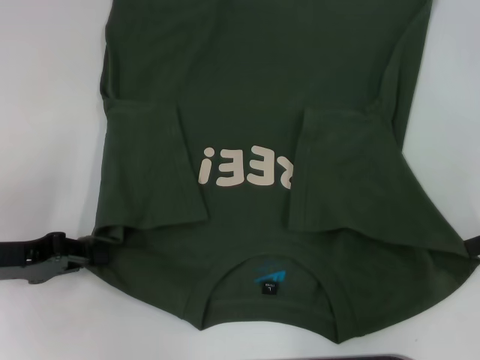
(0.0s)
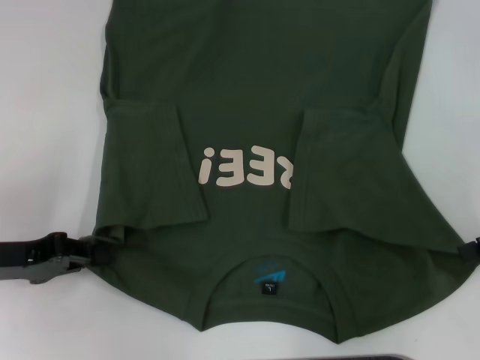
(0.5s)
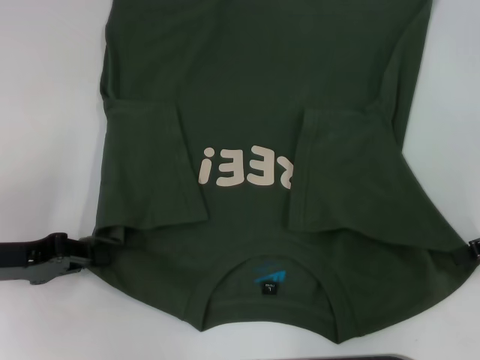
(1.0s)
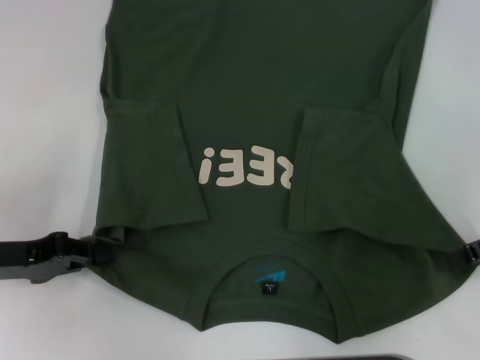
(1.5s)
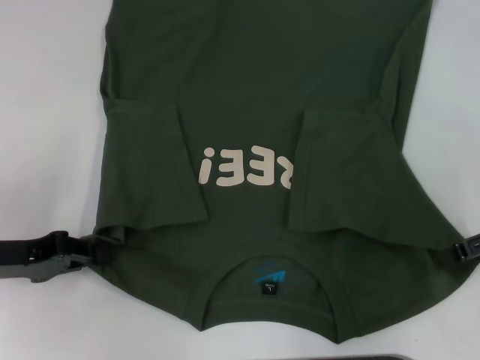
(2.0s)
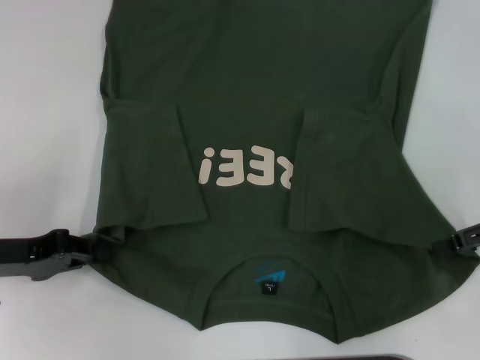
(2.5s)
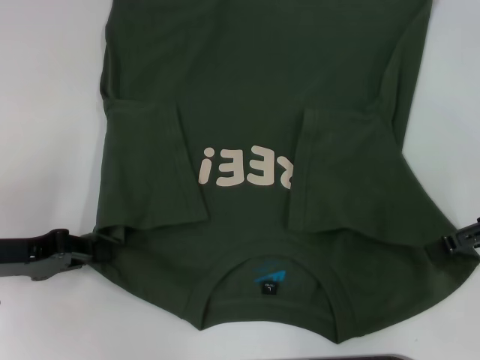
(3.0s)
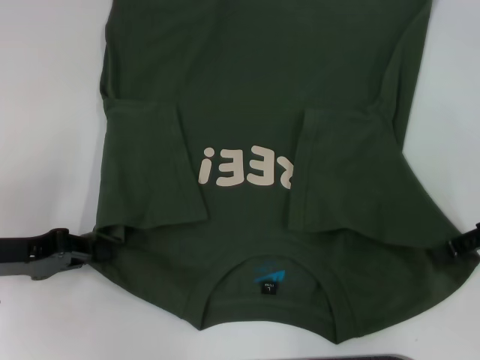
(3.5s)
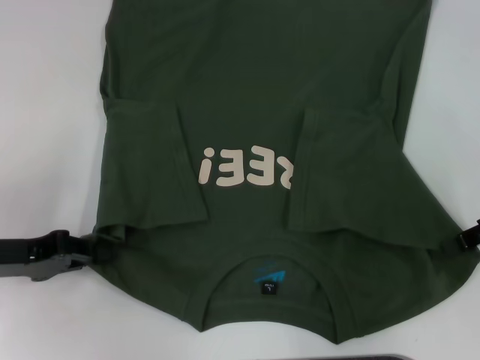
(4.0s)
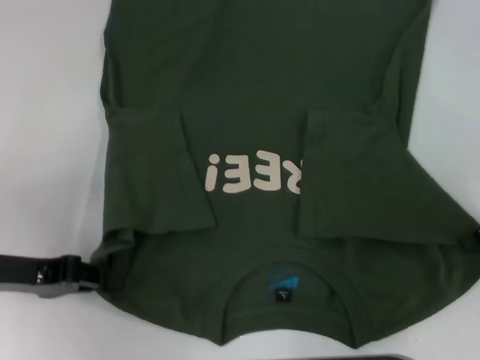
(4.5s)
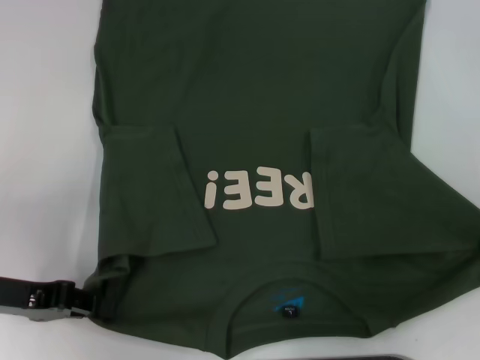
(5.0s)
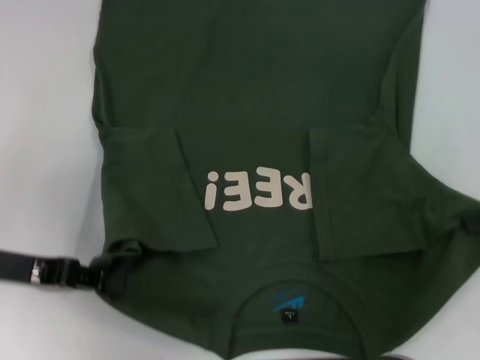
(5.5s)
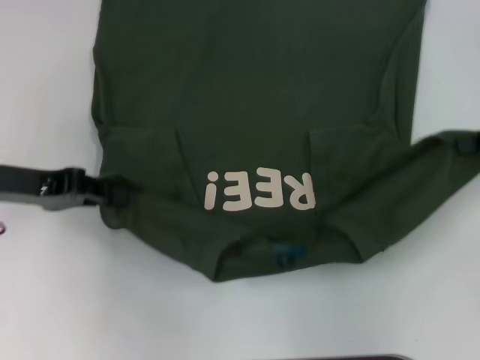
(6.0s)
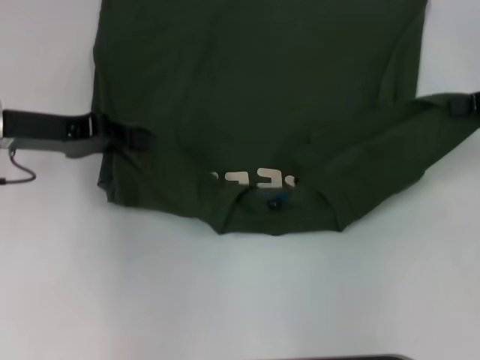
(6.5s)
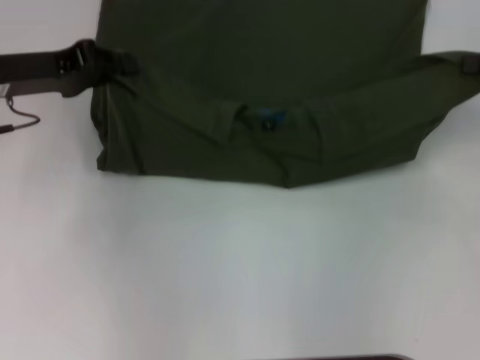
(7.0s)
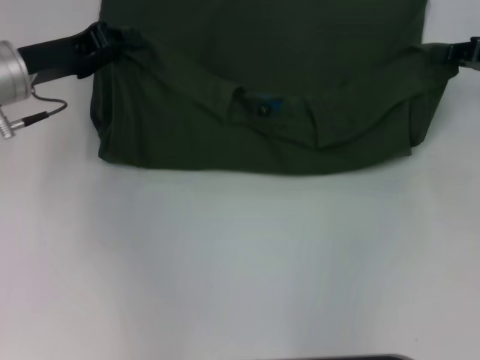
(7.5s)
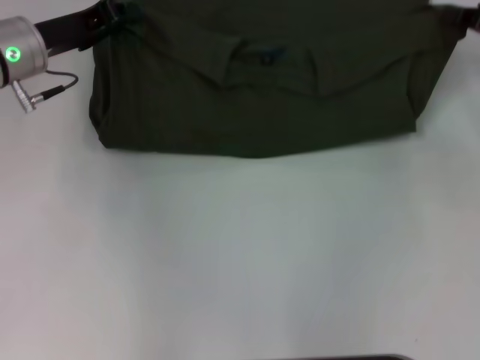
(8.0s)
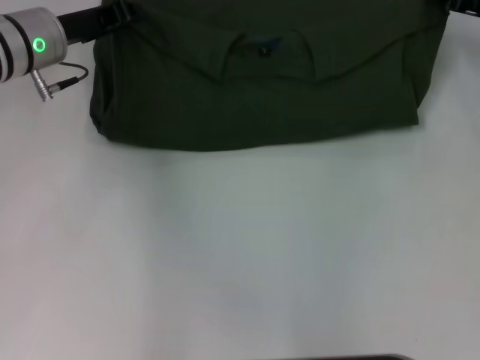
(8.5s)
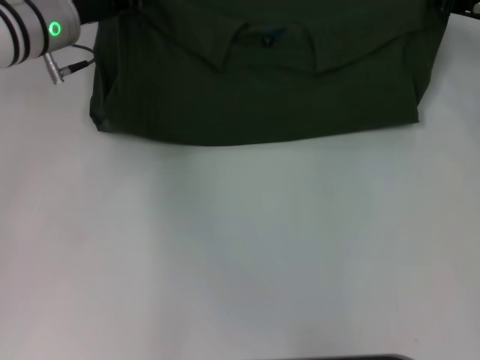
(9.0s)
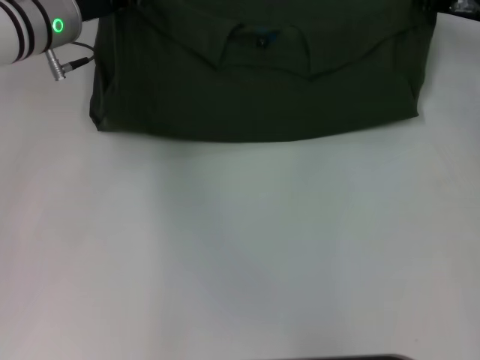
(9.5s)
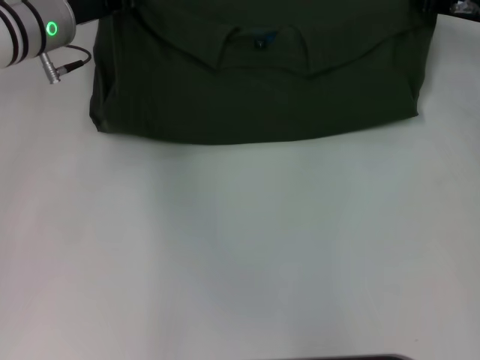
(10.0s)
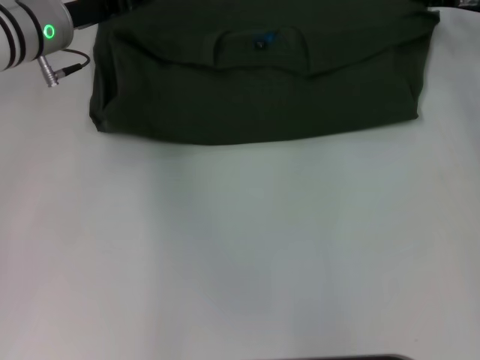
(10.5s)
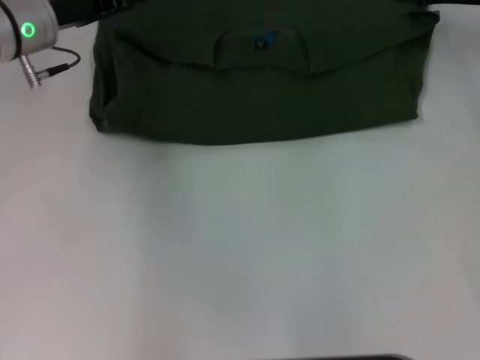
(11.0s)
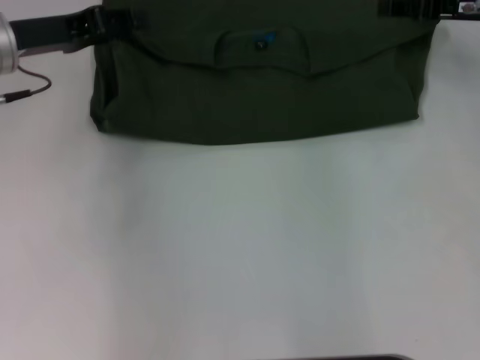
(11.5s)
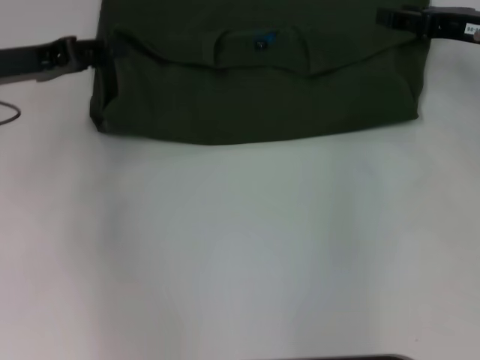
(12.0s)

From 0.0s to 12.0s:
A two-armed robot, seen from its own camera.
Step, from 0.0s to 4.5s: Grab the bottom right corner with your right hand.
Step, from 5.0s to 10.5s: Fold the clothes with your left hand.
Step, from 5.0s to 10.5s: Fold the clothes with your right hand.
From 2.0s to 4.0s: The right gripper closes.
From 4.0s to 6.0s: The left gripper heads forward and upward, covering roughly 10 cm. Meanwhile the right gripper shifts by roughly 5 cm.
From 6.0s to 8.0s: The right gripper changes place by some 5 cm; the left gripper goes approximately 10 cm forward and to the right.
From 8.0s to 10.0s: The right gripper travels forward and to the left by roughly 10 cm.
From 10.0s to 12.0s: The left gripper is displaced to the left and backward by some 10 cm, and opens its fingers. The right gripper heads backward, covering approximately 5 cm, and opens its fingers.

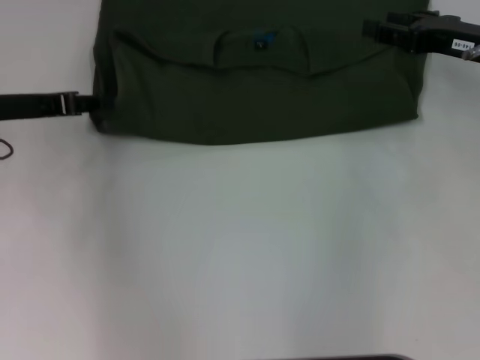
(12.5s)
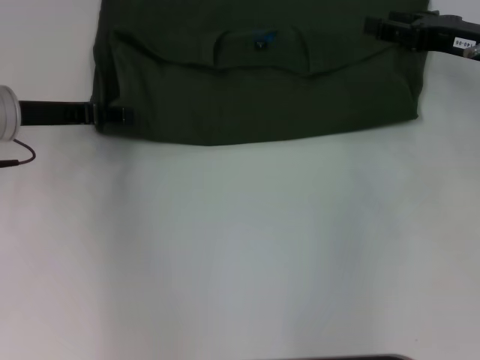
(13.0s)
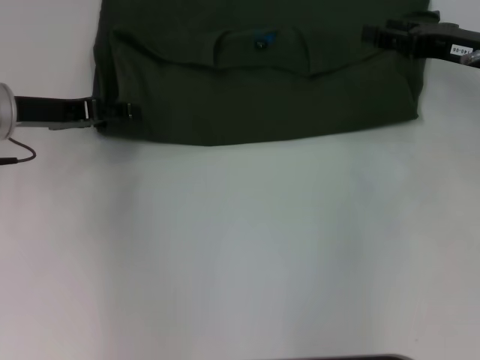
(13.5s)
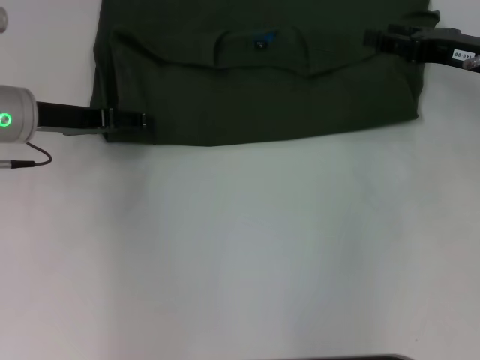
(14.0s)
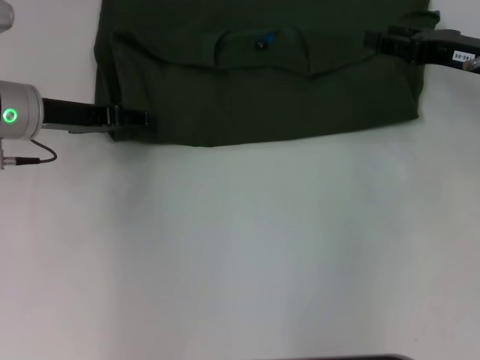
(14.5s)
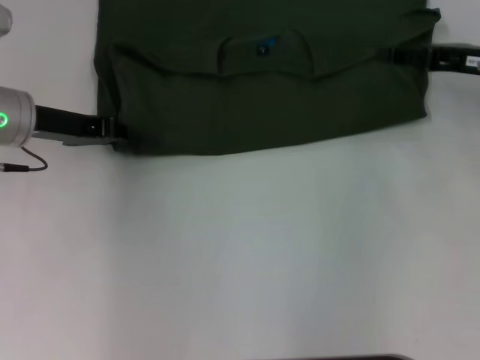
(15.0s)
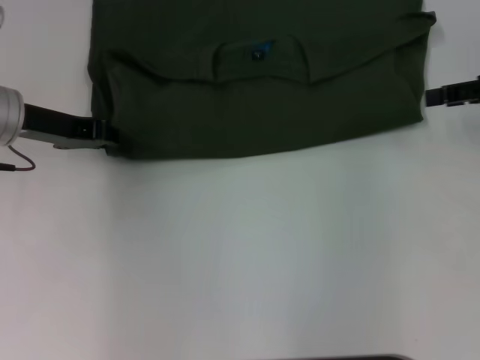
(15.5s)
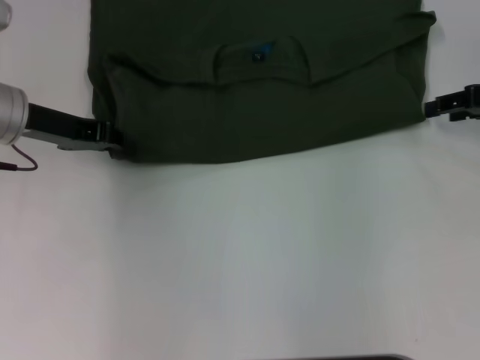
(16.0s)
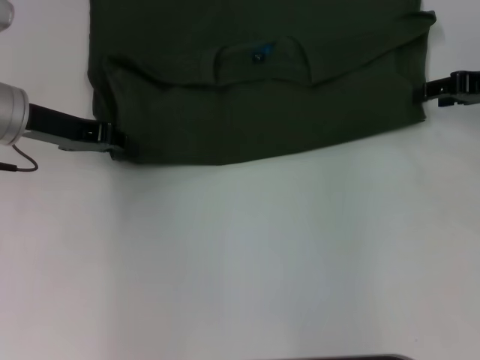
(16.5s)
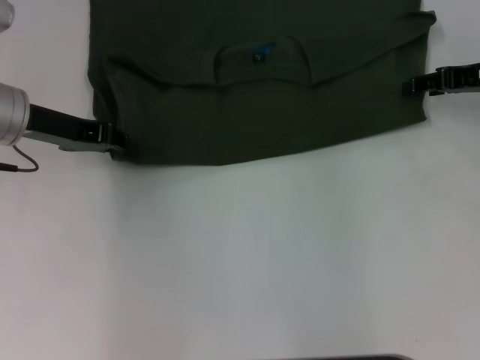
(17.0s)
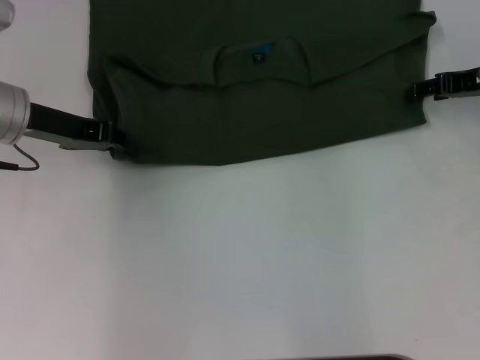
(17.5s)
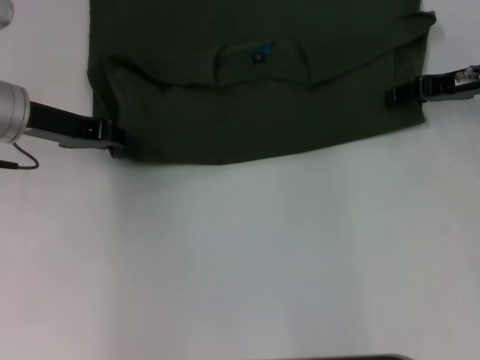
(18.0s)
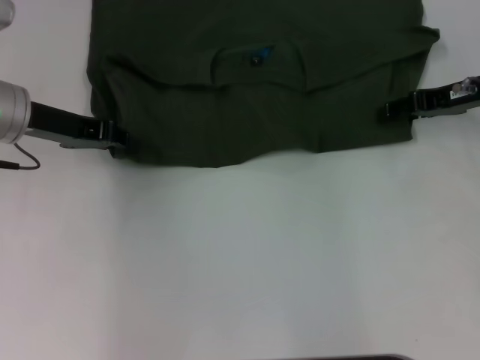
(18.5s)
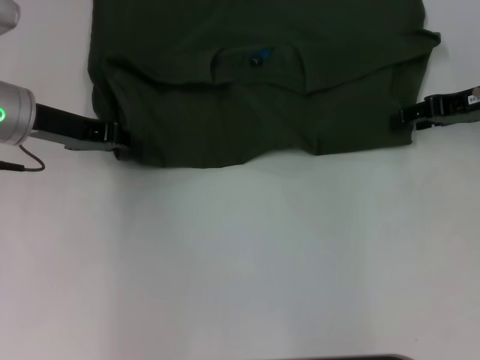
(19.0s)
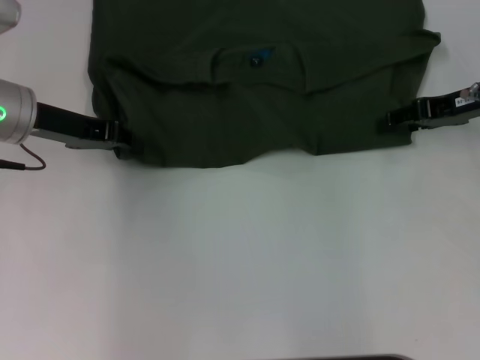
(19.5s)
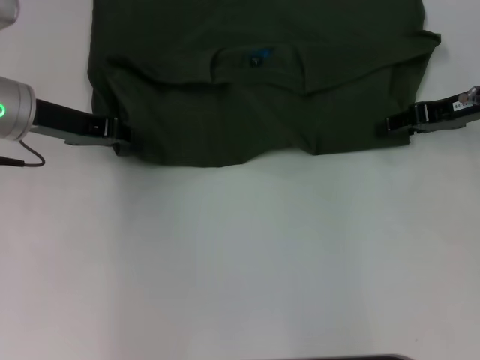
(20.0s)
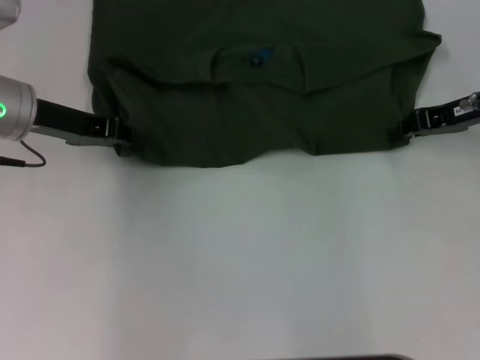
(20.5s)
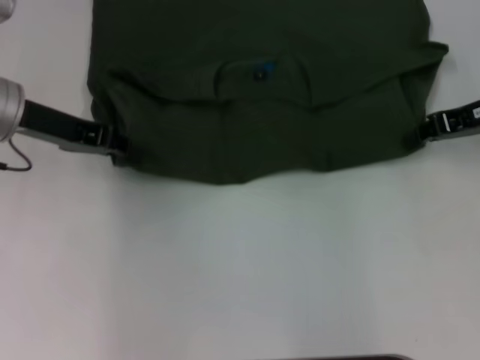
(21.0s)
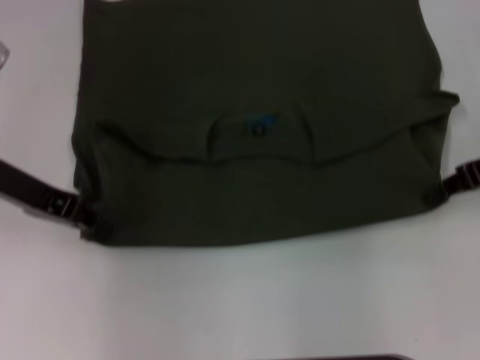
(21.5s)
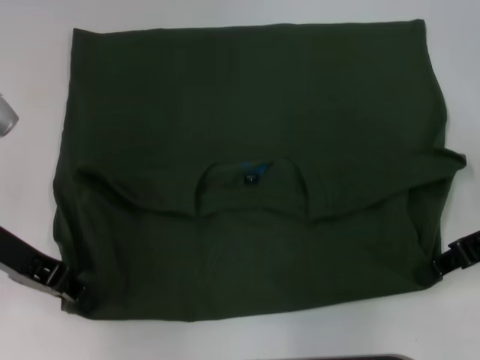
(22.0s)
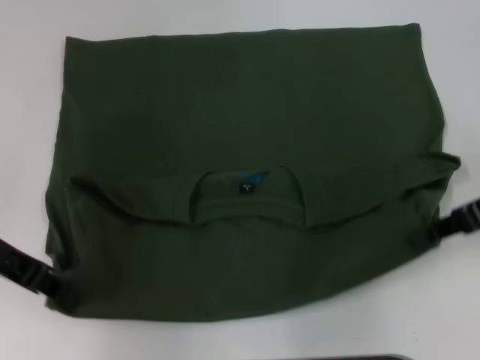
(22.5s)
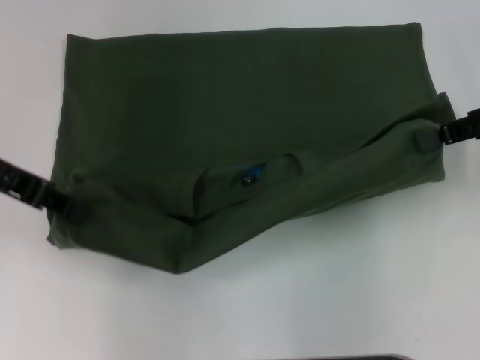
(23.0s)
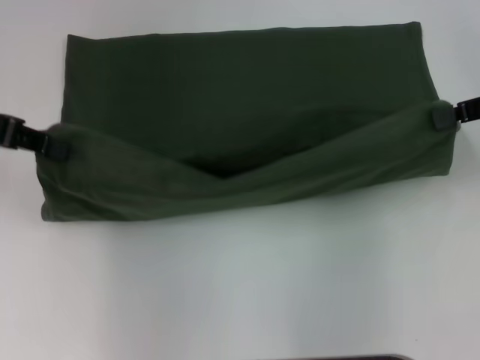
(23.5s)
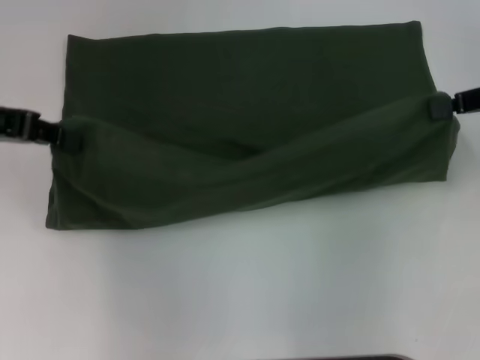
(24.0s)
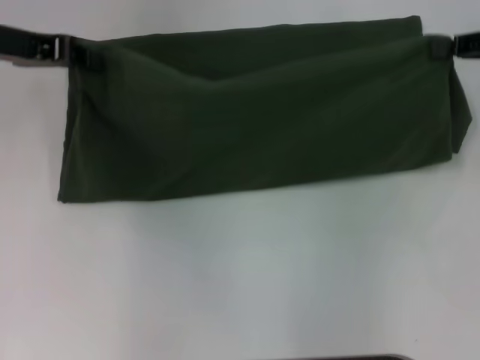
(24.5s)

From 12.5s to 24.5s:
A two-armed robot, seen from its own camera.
Step, from 12.5s to 22.0s: Pull the clothes with your left hand.
Step, from 12.5s to 22.0s: Pull the clothes with your right hand.
From 12.5s to 14.5s: The grippers stay close to where they were, moving slightly.
From 14.5s to 16.5s: The left gripper closes its fingers.
From 16.5s to 20.5s: There are only small adjustments of the grippers.
From 20.5s to 22.5s: Both grippers travel together backward, approximately 10 cm.
From 22.5s to 24.5s: The right gripper shifts roughly 5 cm forward. The left gripper heads forward and upward, covering roughly 10 cm.

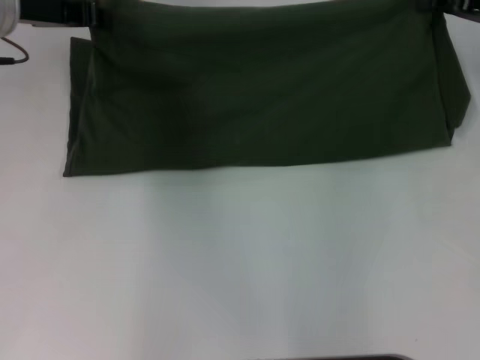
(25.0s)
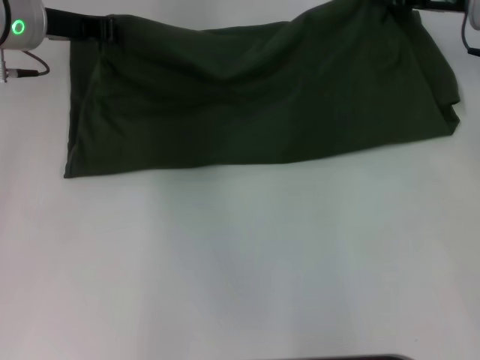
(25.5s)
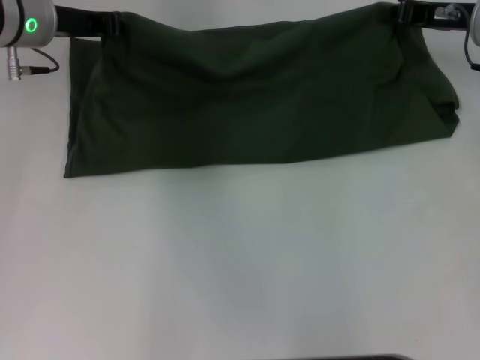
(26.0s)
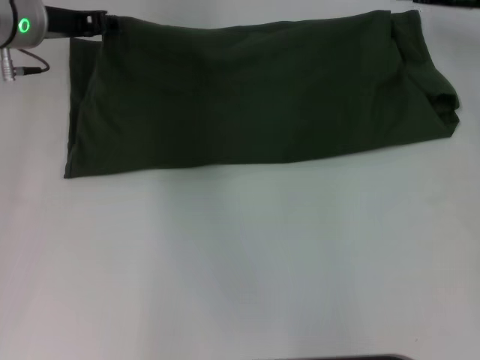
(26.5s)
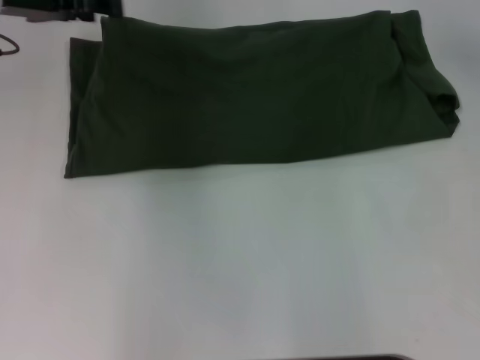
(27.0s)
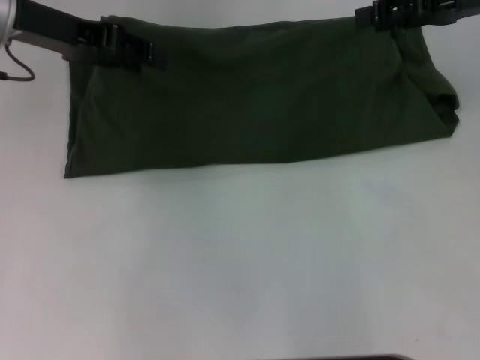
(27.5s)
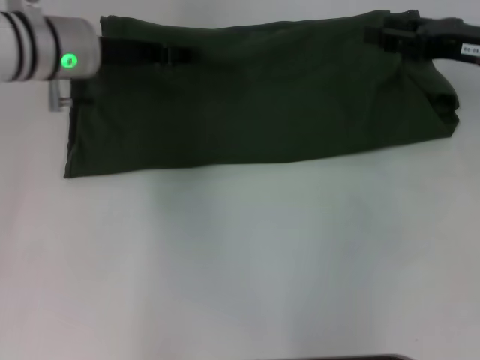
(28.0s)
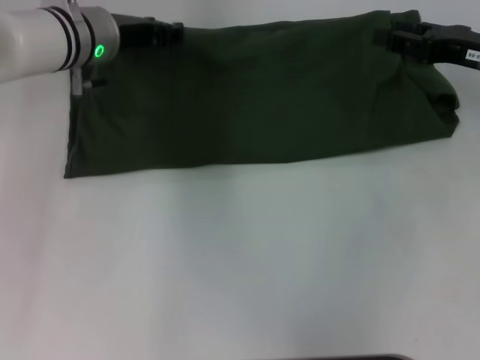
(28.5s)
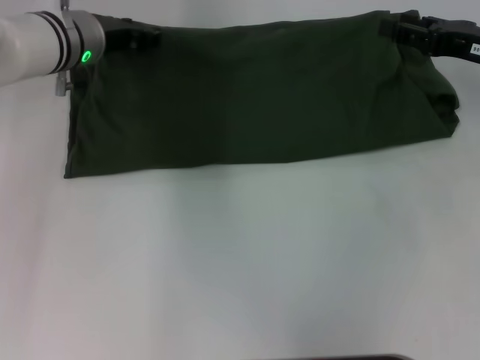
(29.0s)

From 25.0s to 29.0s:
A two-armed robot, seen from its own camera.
From 25.0s to 27.0s: The left gripper opens up, while the right gripper changes place by approximately 5 cm, and opens up.
From 27.0s to 29.0s: The right gripper goes approximately 10 cm downward and backward, while the left gripper travels downward and to the right by roughly 10 cm.
